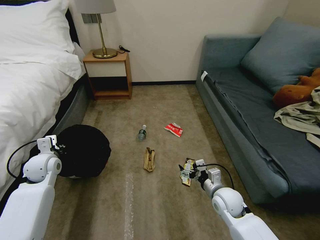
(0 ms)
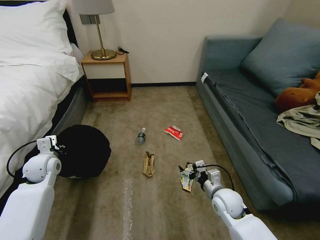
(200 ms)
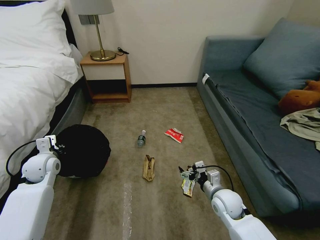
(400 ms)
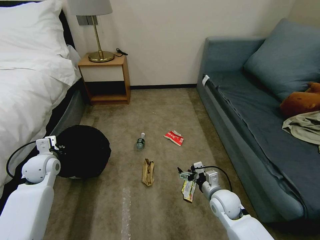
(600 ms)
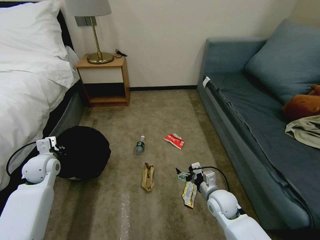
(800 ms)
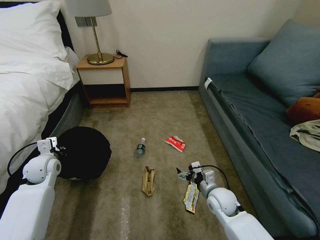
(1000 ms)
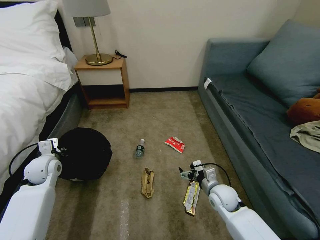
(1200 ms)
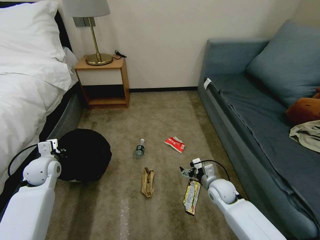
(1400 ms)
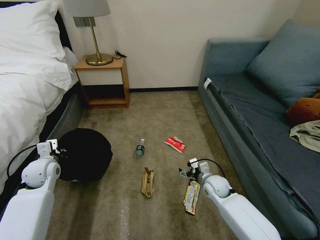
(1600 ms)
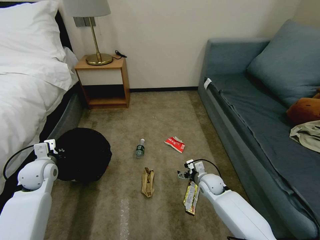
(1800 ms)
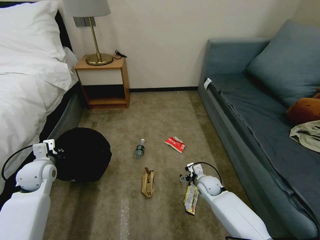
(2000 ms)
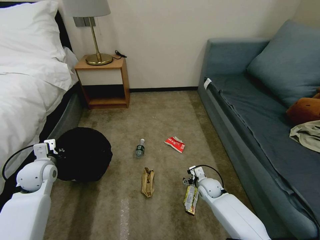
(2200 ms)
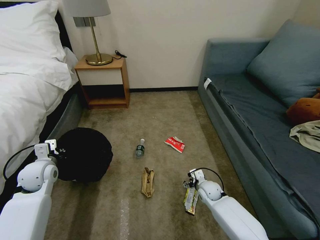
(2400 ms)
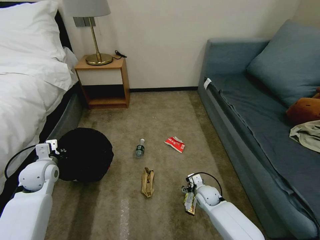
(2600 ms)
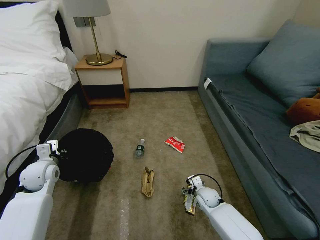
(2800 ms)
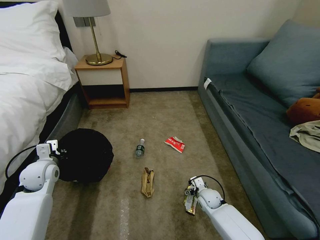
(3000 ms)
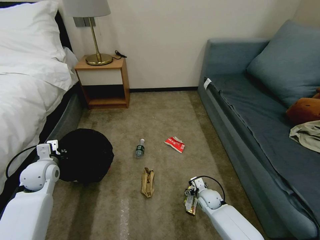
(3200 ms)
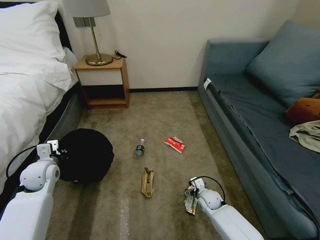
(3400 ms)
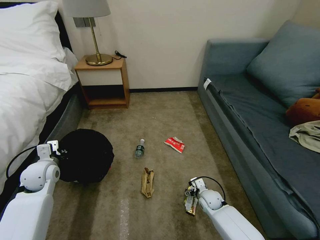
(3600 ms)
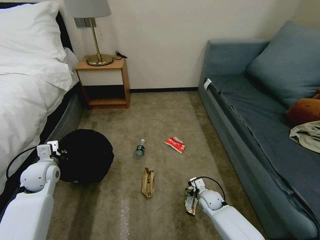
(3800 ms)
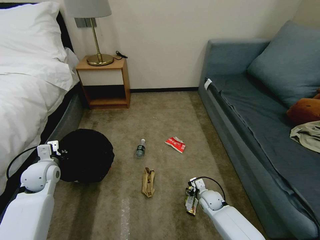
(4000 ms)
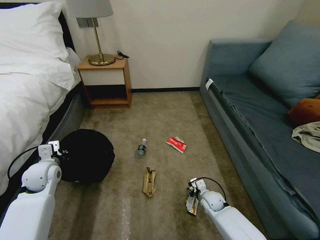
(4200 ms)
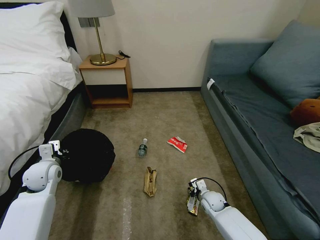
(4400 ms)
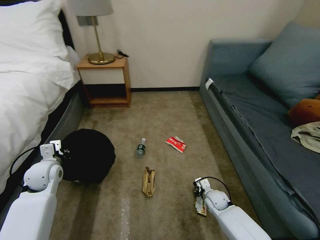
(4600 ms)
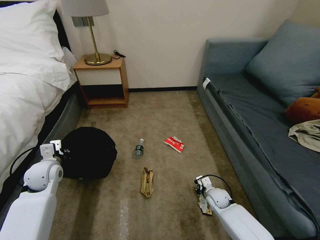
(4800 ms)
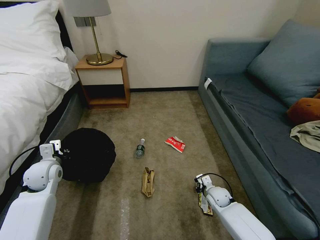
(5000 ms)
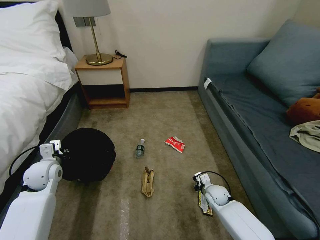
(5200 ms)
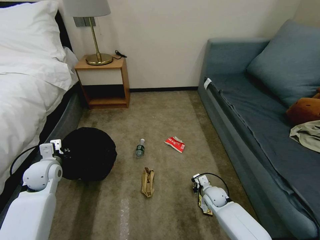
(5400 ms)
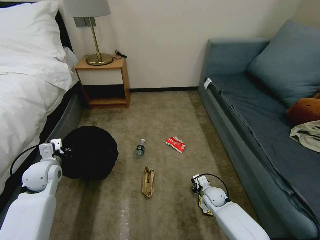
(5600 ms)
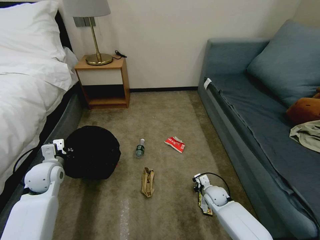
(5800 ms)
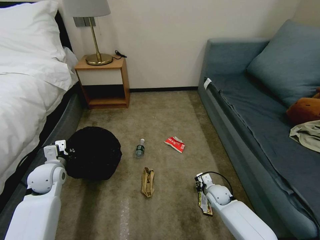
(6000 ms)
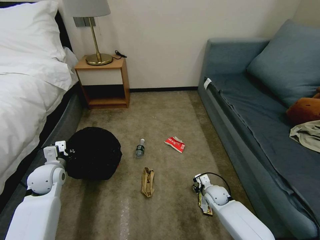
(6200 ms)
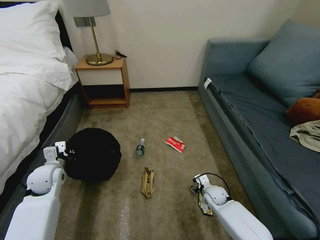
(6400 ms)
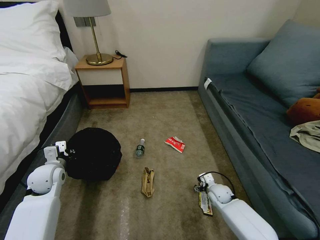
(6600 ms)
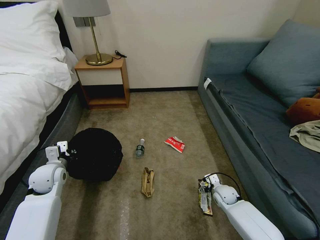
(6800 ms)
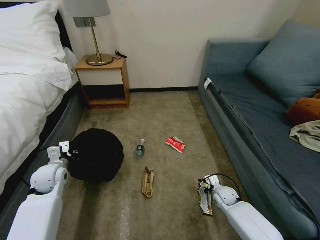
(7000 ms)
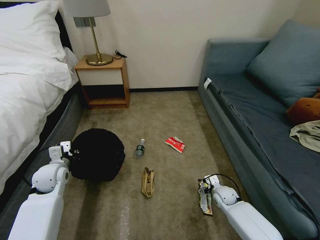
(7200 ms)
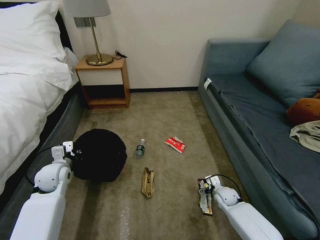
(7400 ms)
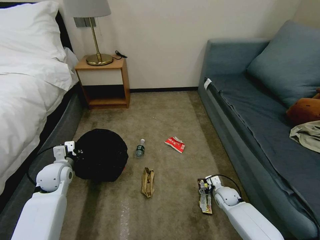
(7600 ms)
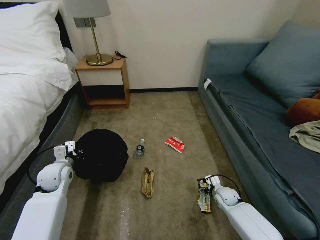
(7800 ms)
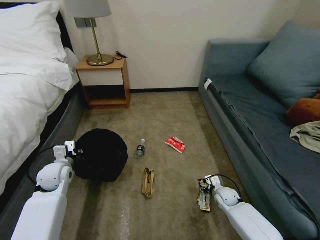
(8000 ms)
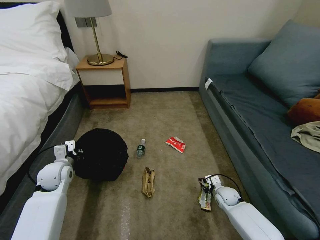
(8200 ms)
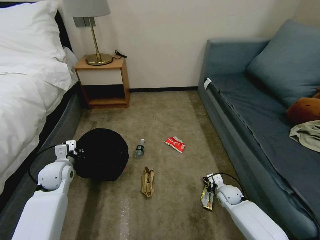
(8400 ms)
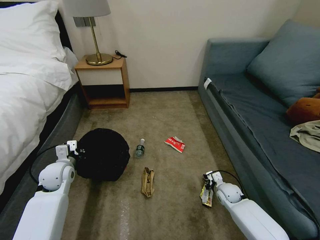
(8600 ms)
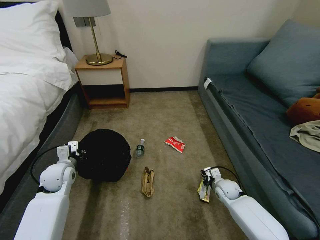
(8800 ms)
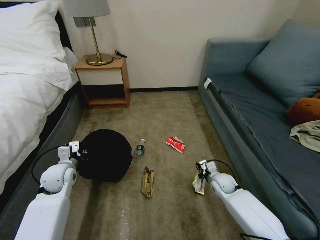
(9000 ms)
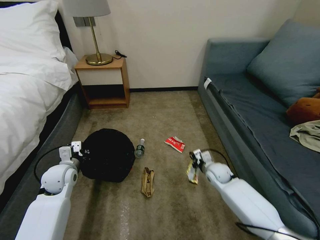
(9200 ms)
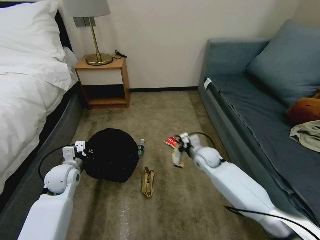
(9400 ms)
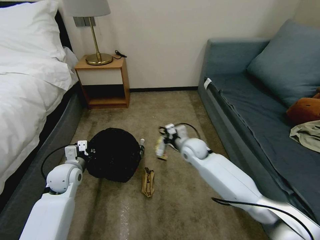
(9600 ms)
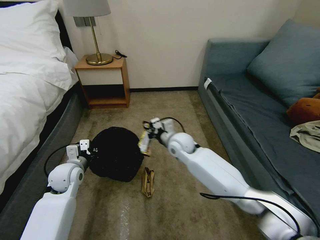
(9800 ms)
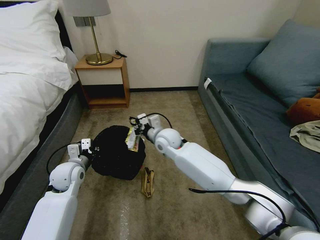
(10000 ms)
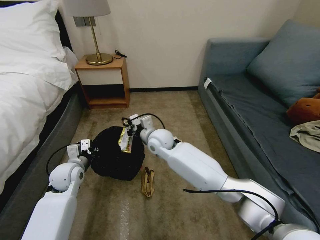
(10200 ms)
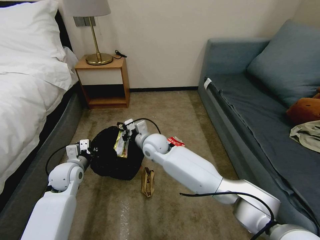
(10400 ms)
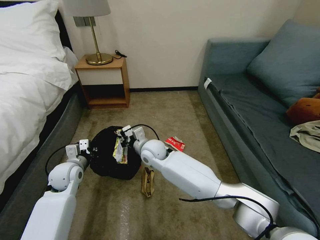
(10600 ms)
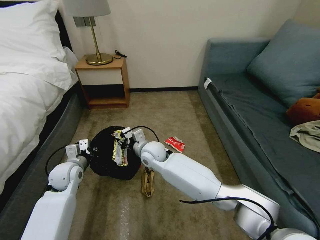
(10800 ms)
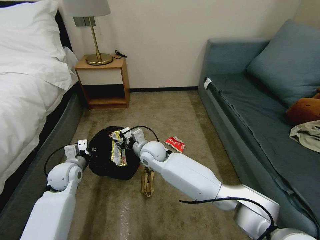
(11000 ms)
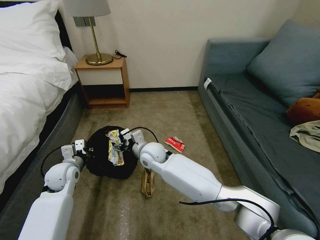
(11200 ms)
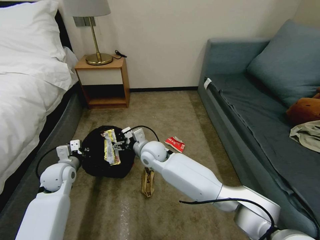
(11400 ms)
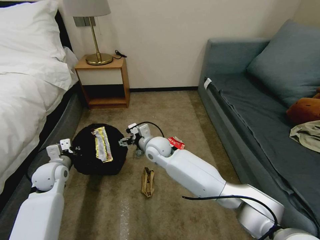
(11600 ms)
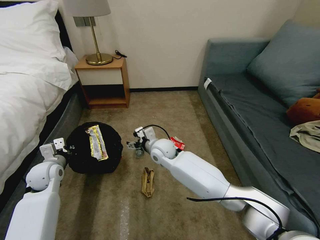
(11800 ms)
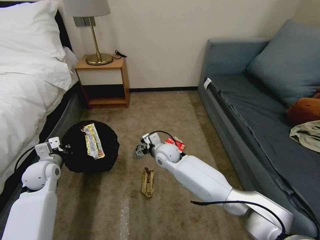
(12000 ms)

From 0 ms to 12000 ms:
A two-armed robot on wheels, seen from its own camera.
Task of the whole recording: Pick up the trash bin, then pick up the garbage on the floor and place it into the trash bin.
From 0 ms to 1600 ms: The right gripper shifts some 5 cm forward.
From 1600 ms to 3000 ms: The right gripper is displaced downward by some 10 cm.
From 3000 ms to 4400 ms: The right gripper closes its fingers.
From 4400 ms to 6000 ms: The grippers move only a little.
From 6000 ms to 7600 ms: The right gripper opens up.
From 7600 ms to 9000 ms: The right gripper goes approximately 5 cm upward, and closes up.
From 9000 ms to 10400 ms: The right gripper goes some 35 cm to the left and upward.
From 10400 ms to 12000 ms: The right gripper goes some 10 cm downward and to the right, and opens up. The left gripper heads to the left, covering roughly 10 cm.

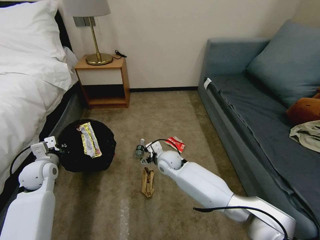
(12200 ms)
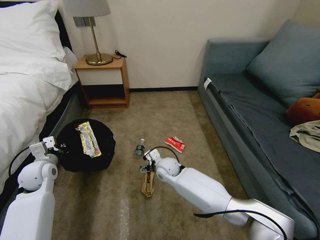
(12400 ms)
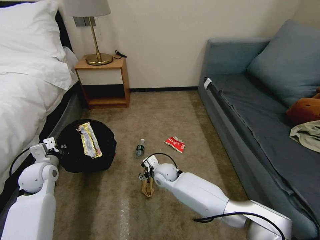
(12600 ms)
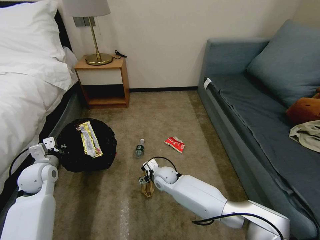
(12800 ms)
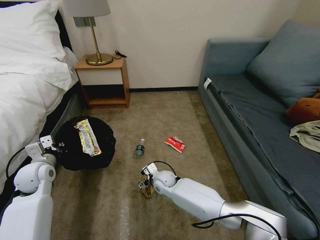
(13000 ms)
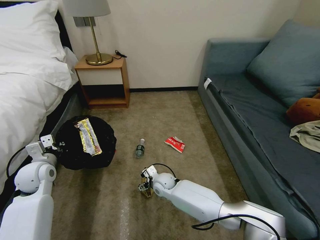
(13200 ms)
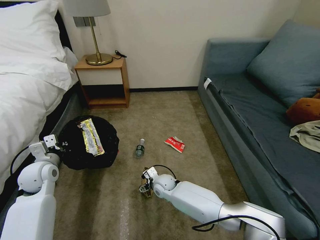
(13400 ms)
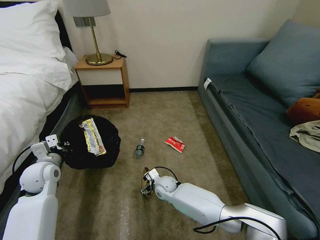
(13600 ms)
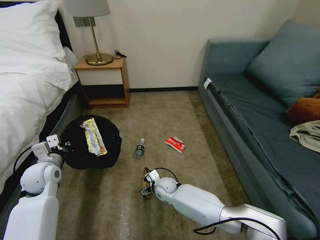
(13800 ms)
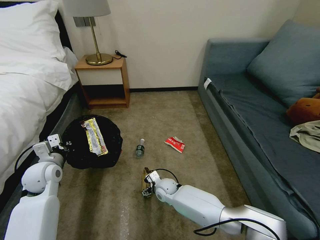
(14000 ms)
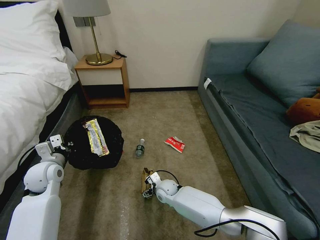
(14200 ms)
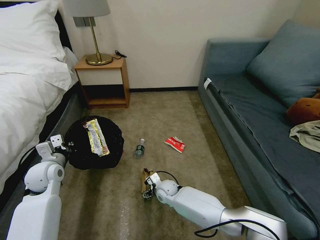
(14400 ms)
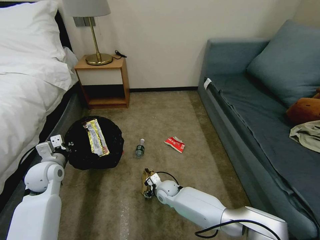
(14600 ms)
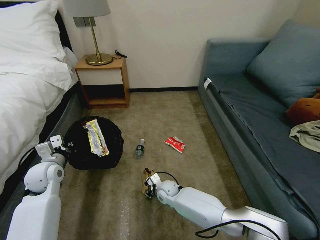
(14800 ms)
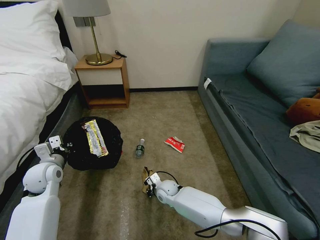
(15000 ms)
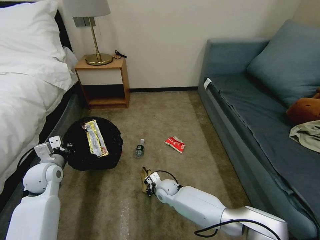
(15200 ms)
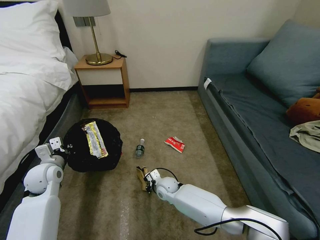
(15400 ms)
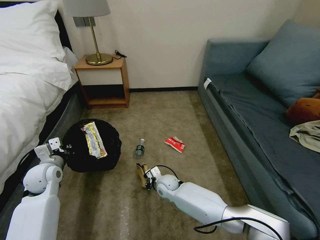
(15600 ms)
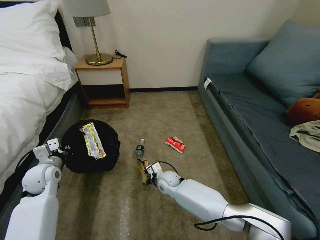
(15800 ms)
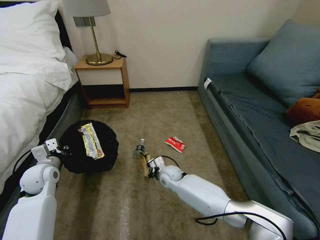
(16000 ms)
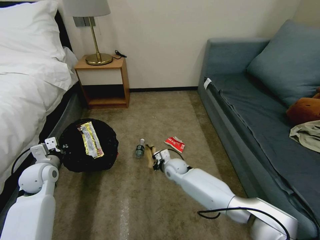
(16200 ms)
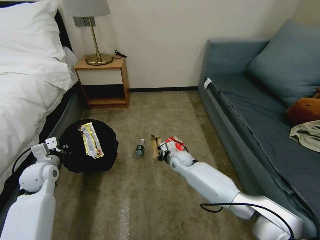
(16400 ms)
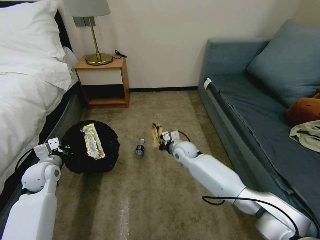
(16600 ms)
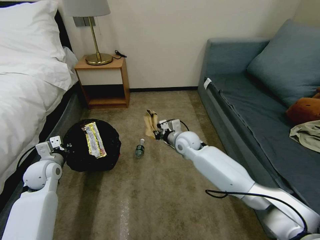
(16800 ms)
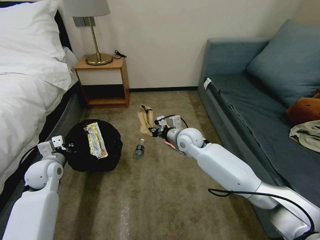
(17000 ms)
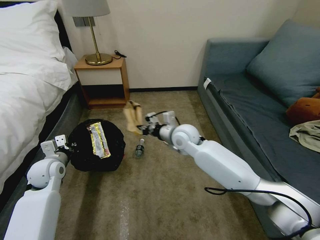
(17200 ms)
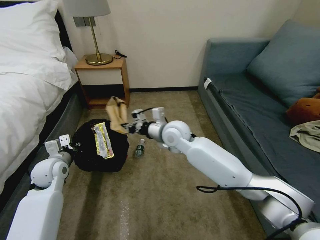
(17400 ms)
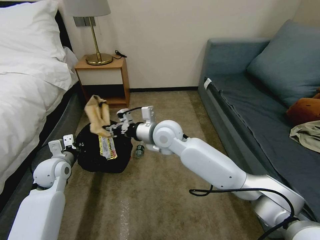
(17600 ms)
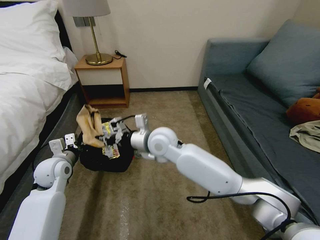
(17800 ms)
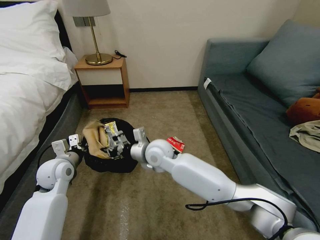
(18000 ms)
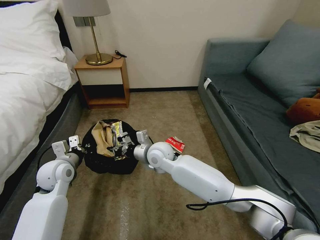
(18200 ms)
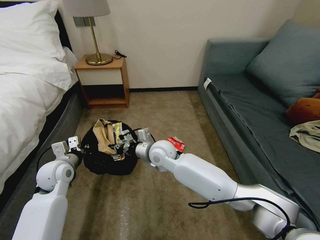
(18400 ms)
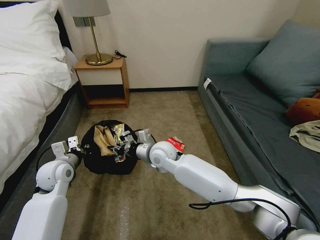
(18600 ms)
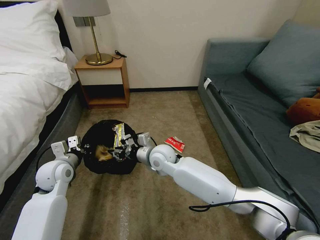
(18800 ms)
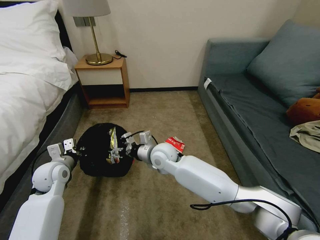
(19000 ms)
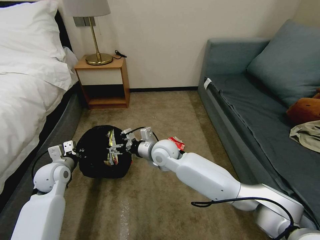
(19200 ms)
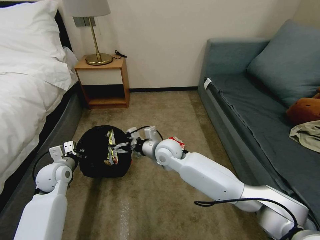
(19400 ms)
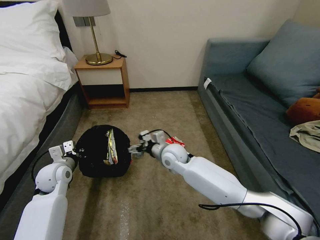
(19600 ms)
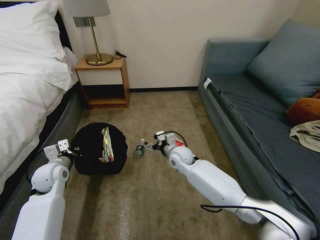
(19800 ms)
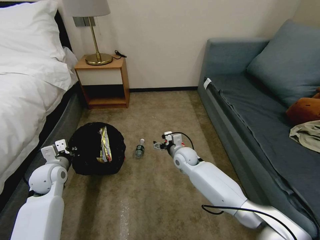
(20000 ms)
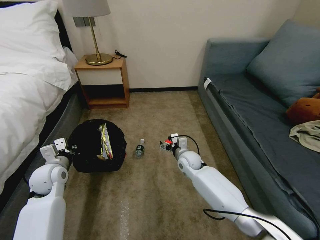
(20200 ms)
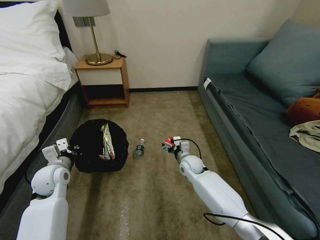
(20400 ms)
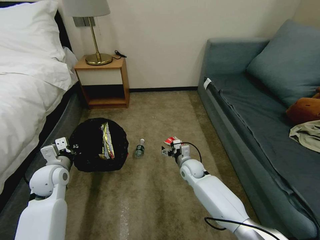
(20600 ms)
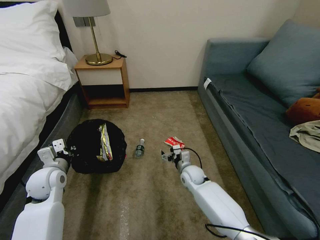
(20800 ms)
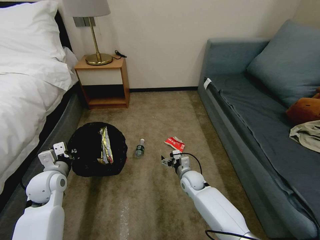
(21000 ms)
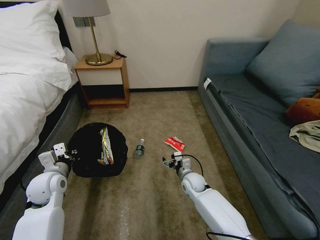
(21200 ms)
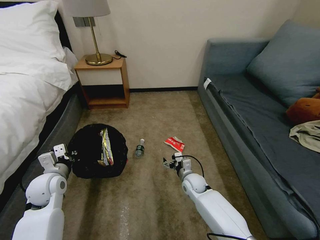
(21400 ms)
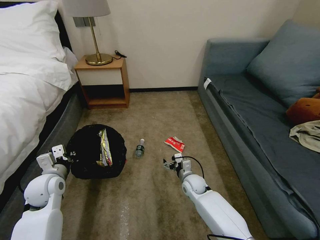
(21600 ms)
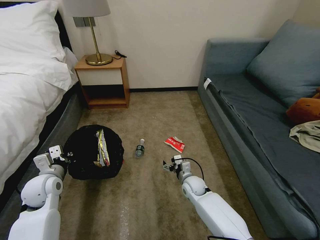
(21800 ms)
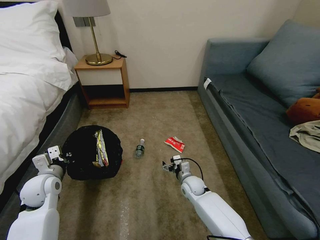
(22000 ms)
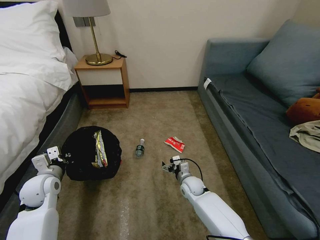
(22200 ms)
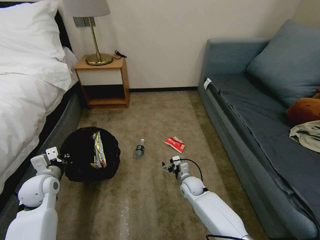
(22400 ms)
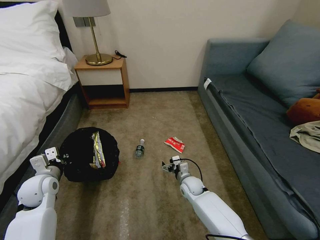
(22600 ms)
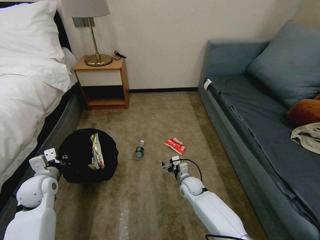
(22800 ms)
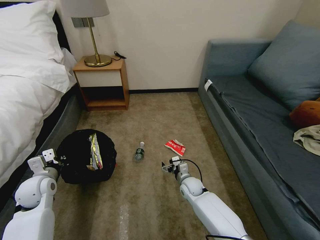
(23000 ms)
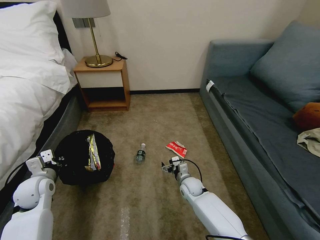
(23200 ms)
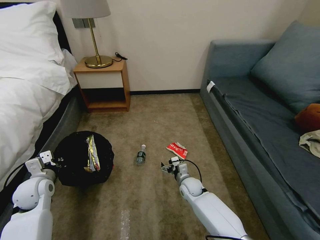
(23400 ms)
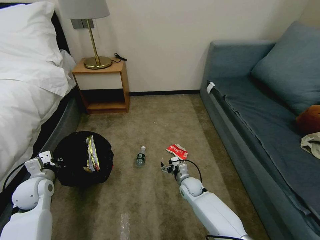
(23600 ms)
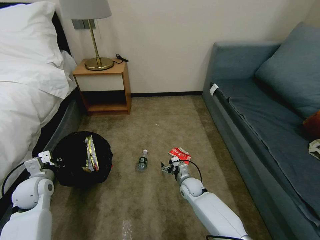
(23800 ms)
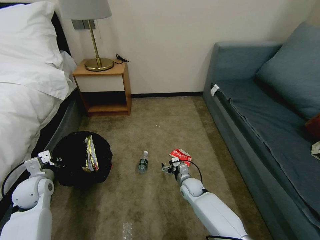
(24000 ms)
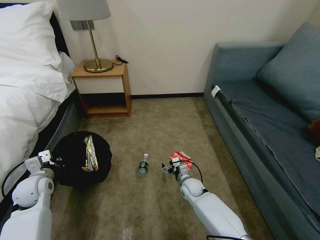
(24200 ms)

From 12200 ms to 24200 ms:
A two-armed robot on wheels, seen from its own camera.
Task of the whole recording: Pick up the trash bin, then pick up the garbage on the floor and place it into the trash bin.
From 12200 ms to 13800 ms: The right gripper moves downward and backward, about 15 cm.
From 13800 ms to 15200 ms: The right gripper closes.
From 15200 ms to 16600 ms: The right gripper goes roughly 20 cm upward, forward and to the right.
From 16600 ms to 18200 ms: The left gripper goes approximately 5 cm to the right; the right gripper is displaced to the left, upward and backward by roughly 15 cm.
From 18200 ms to 19800 ms: The right gripper shifts roughly 10 cm to the right and downward, and opens up.
From 19800 ms to 21200 ms: The right gripper goes some 15 cm downward, to the right and backward.
From 21200 ms to 22600 ms: The grippers move only a little.
